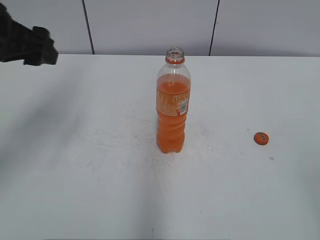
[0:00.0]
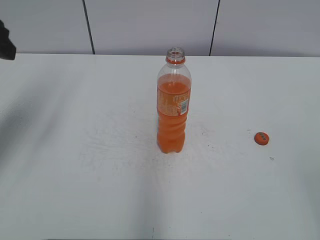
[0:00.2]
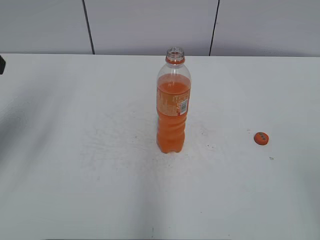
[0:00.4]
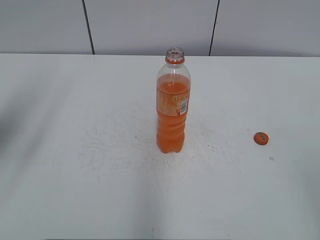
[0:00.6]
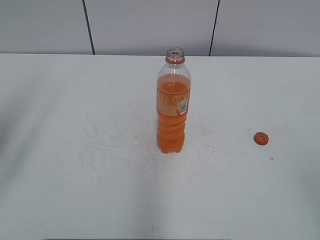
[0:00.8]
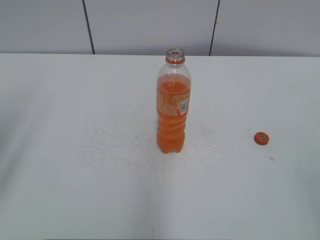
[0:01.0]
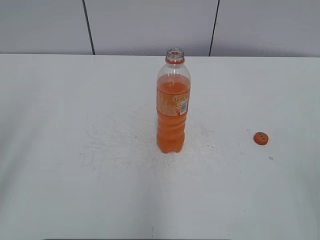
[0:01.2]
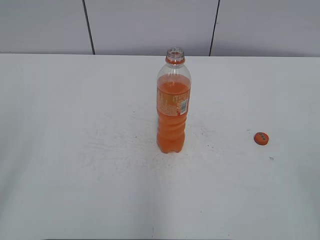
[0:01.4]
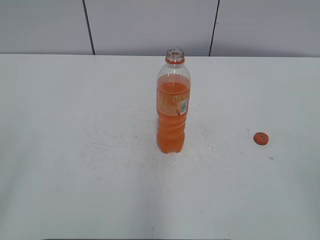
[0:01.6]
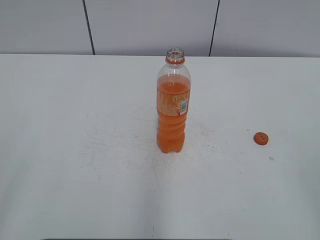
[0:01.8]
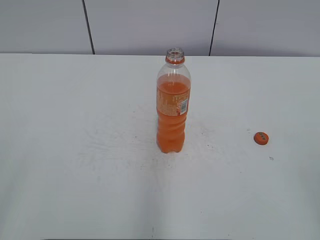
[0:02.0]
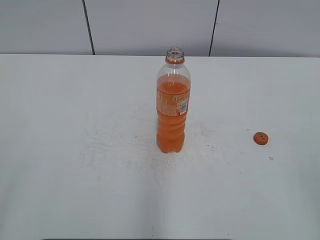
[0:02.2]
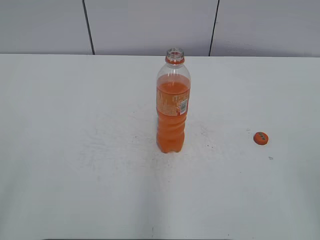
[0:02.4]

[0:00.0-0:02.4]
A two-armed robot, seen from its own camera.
0:00.0 to 0:01.2: The left gripper travels backward and to the left by some 20 cm.
